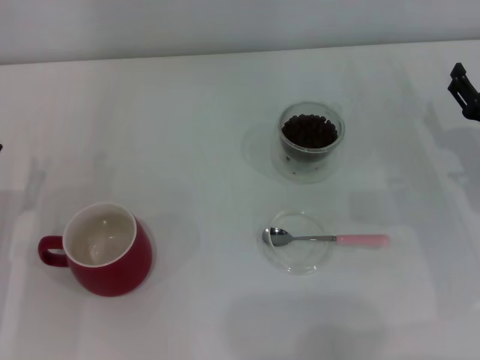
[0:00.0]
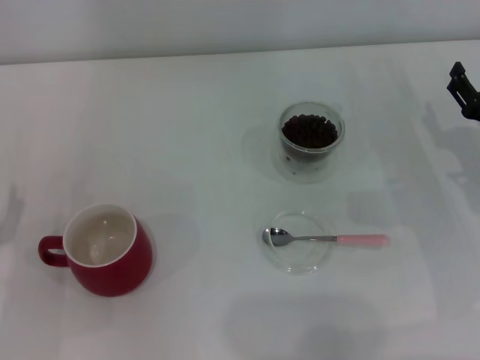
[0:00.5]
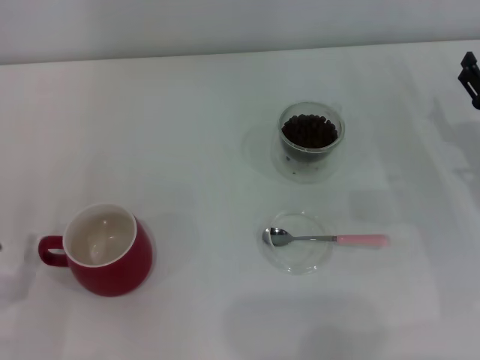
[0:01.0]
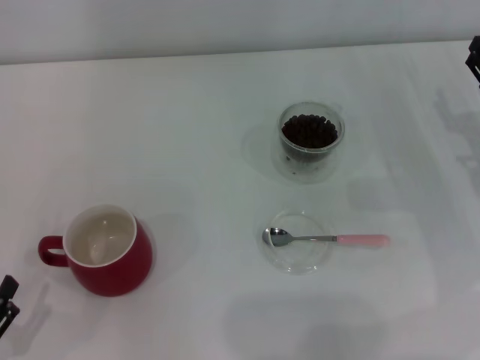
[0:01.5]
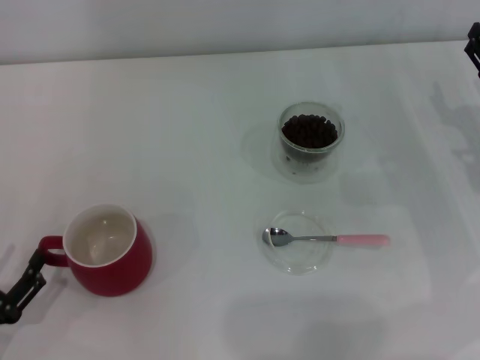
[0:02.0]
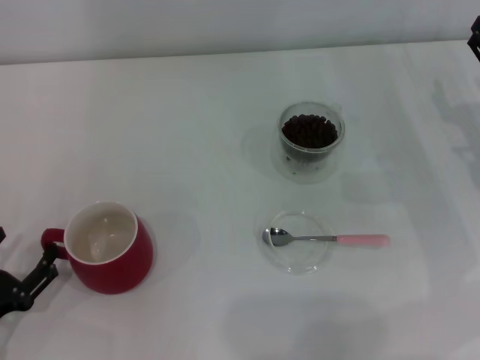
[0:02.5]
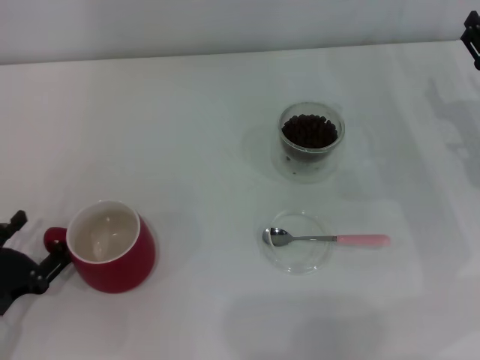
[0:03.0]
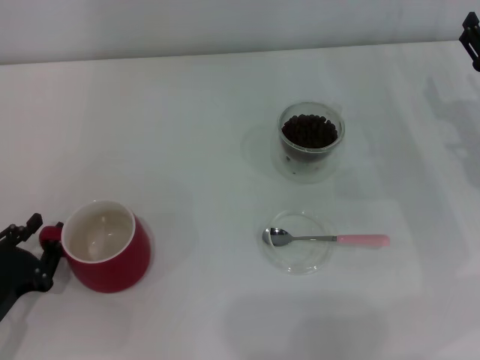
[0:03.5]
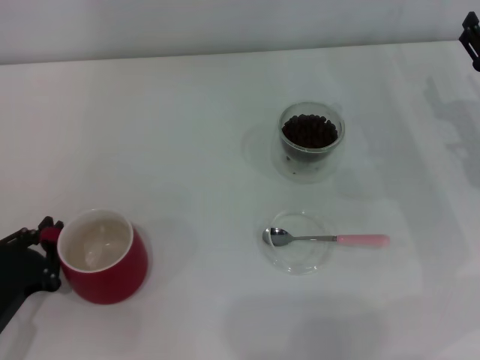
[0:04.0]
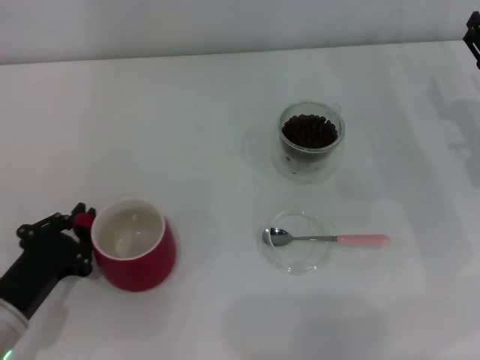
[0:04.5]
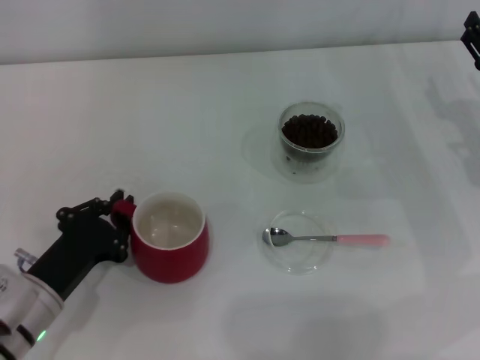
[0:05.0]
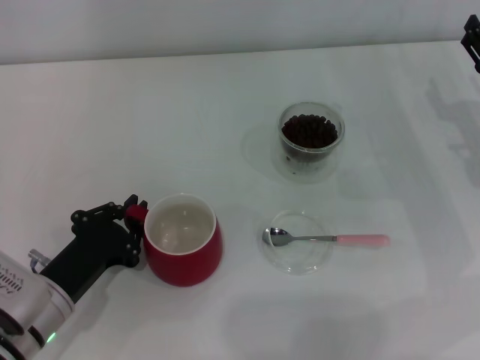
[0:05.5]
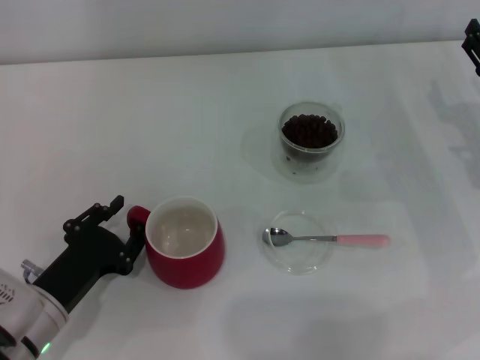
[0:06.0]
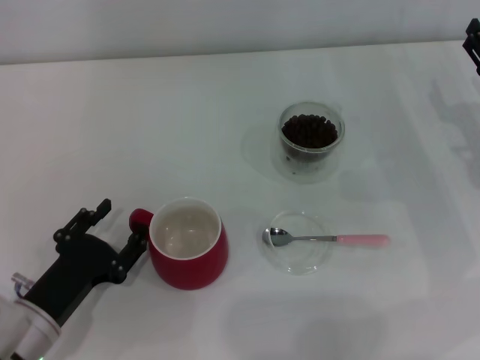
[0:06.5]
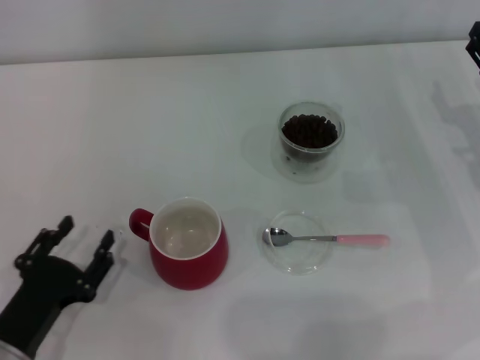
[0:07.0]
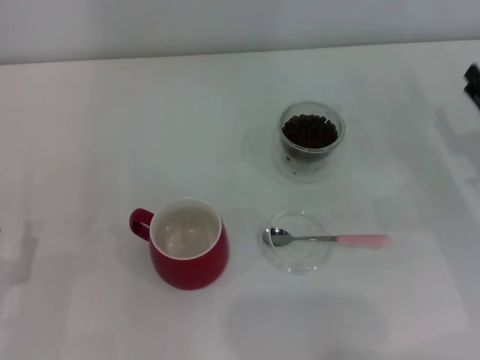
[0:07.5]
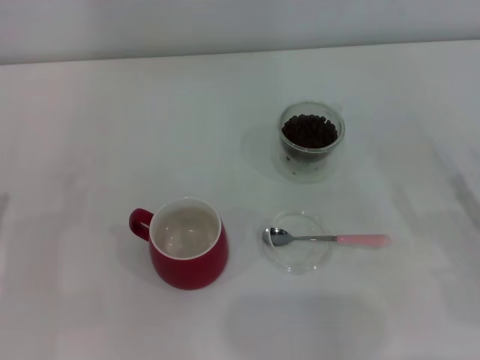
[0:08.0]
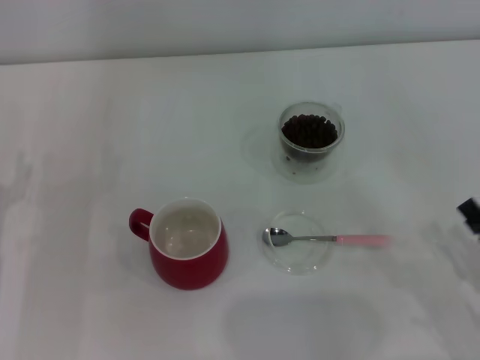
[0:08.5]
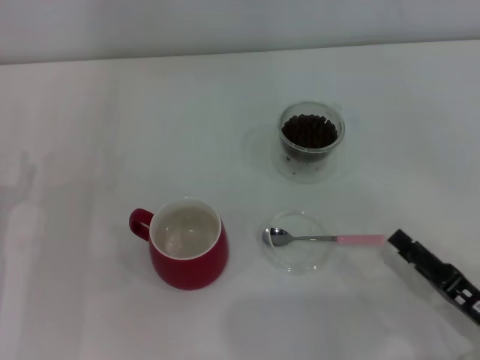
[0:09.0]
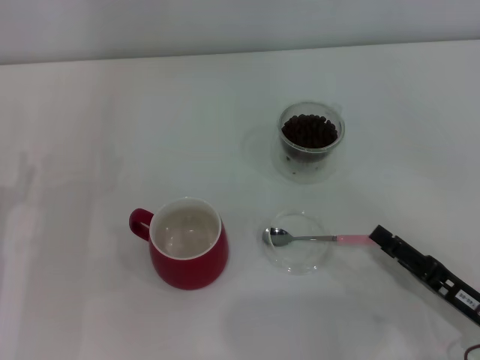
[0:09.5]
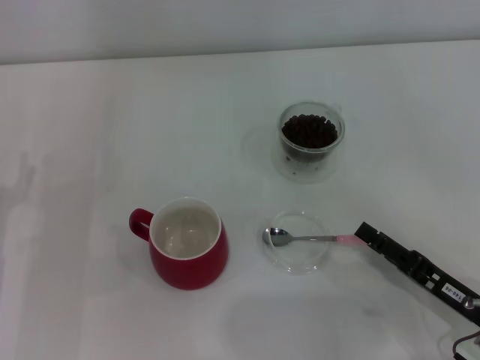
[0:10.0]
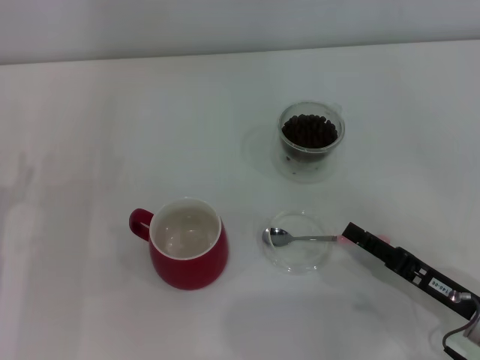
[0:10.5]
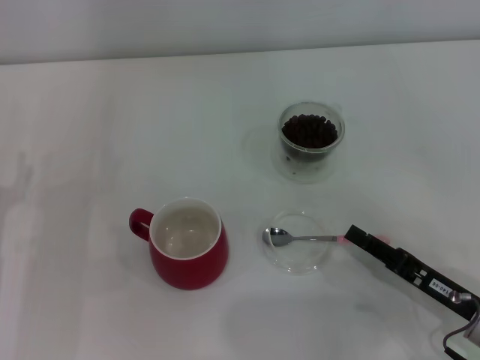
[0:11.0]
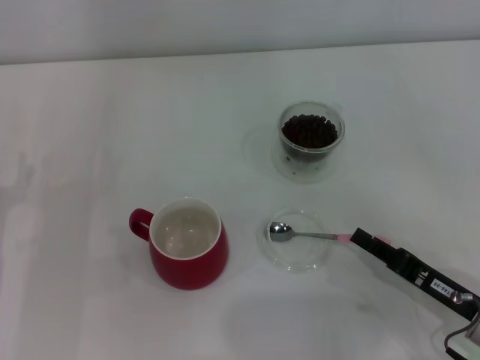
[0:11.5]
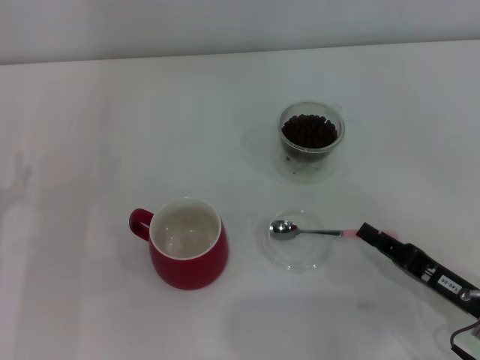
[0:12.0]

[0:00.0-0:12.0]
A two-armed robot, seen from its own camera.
Task of the whole recording: Use a pink spoon to take out the coffee beans from the glass and pour them into the red cup.
Step, 0:00.0 to 0:06.5: Move the cup to the center of view with the left gripper.
0:00.0 to 0:02.0: The left gripper heads backward, covering approximately 10 cm.
0:02.0 to 0:04.0: The left gripper goes roughly 5 cm forward, and closes its fingers.
0:04.0 to 0:06.0: The left gripper moves to the right, some 5 cm.
0:06.0 to 0:08.0: The left gripper is displaced to the left by about 10 cm, and opens; the right gripper shifts some 15 cm backward.
0:08.0 to 0:10.0: The right gripper travels to the left by some 10 cm.
0:10.0 to 0:12.0: The right gripper closes its fingers.

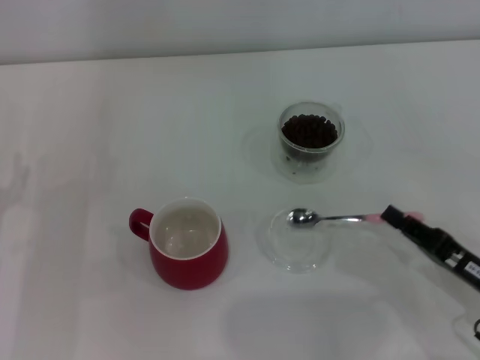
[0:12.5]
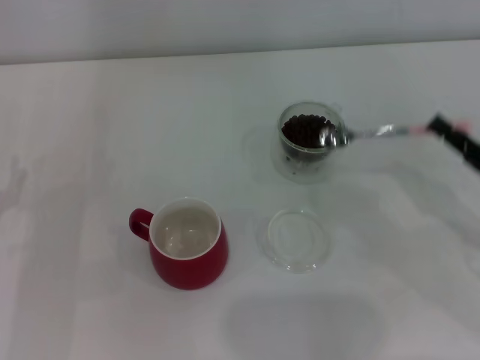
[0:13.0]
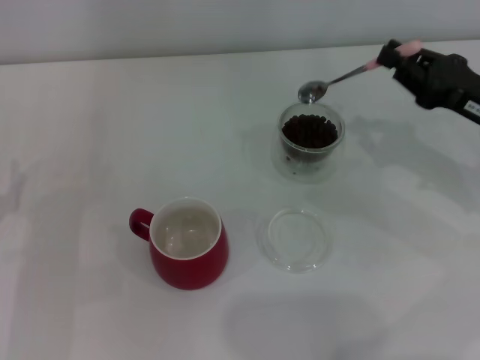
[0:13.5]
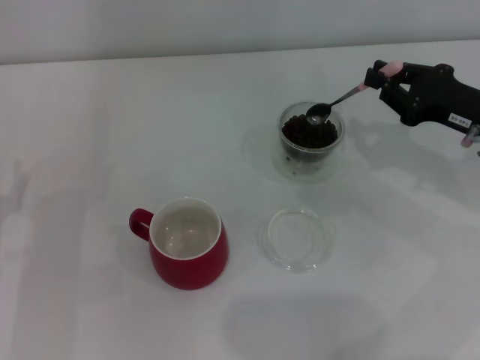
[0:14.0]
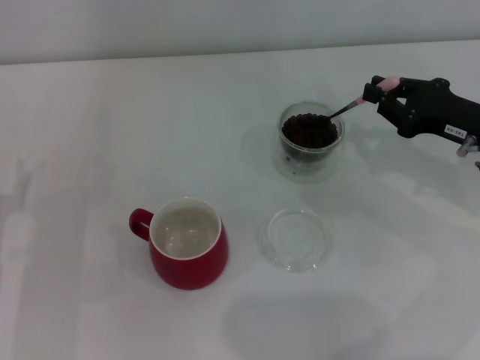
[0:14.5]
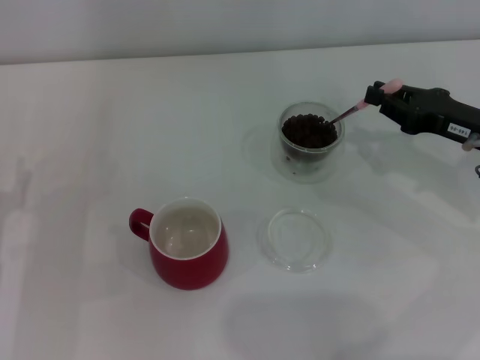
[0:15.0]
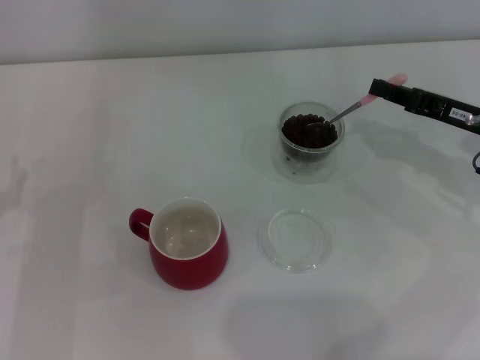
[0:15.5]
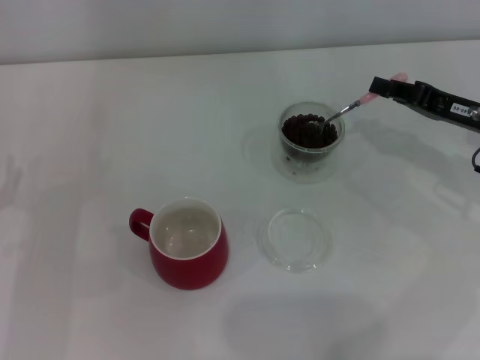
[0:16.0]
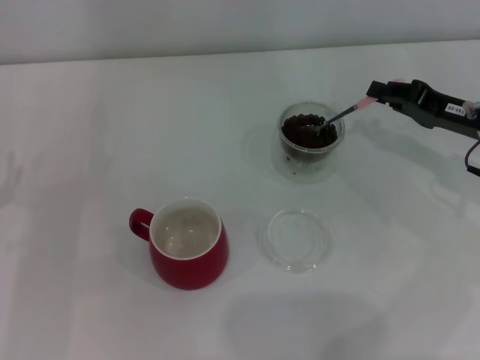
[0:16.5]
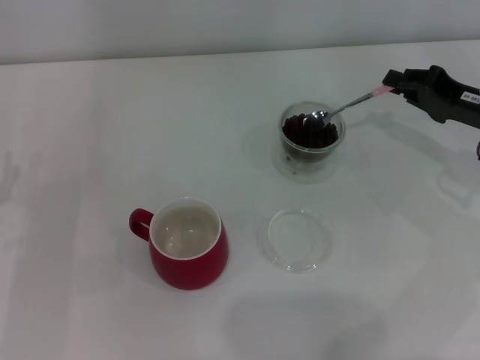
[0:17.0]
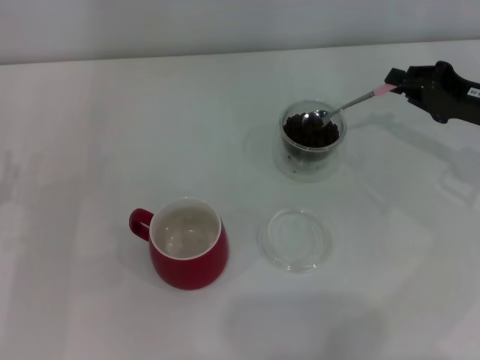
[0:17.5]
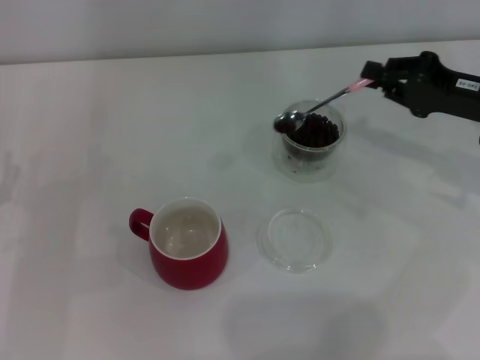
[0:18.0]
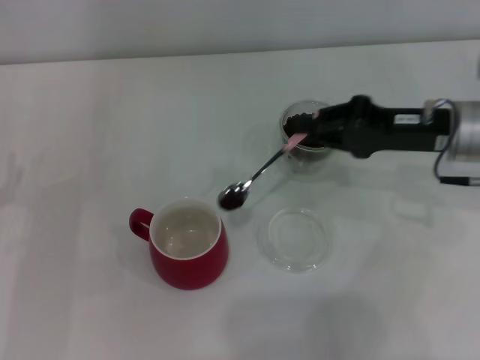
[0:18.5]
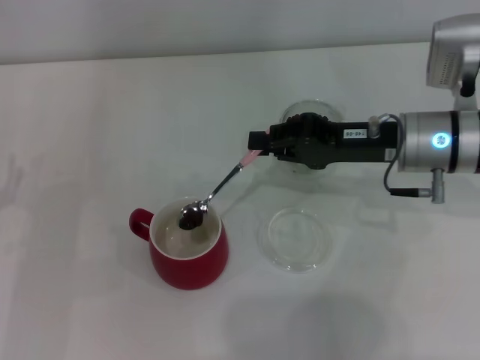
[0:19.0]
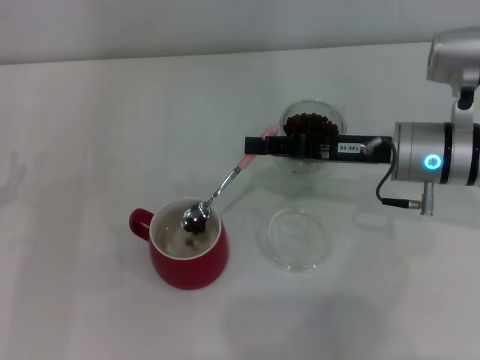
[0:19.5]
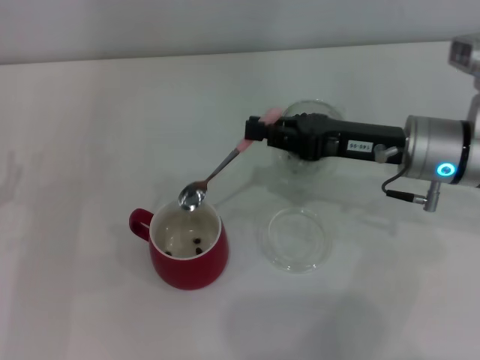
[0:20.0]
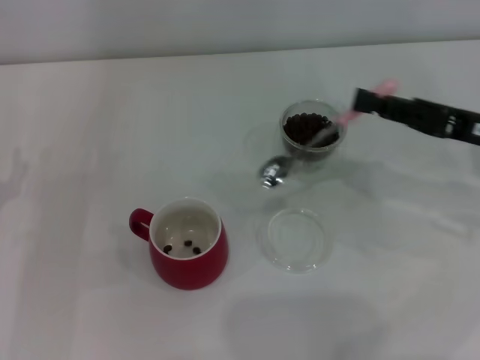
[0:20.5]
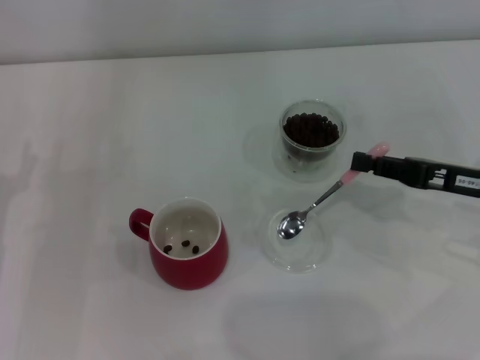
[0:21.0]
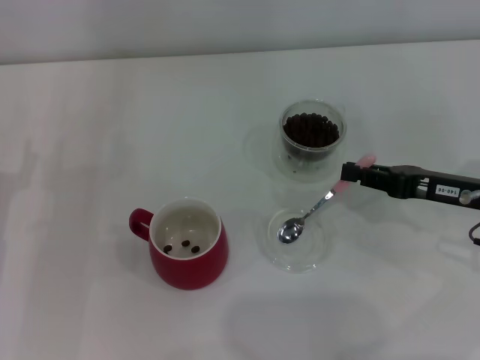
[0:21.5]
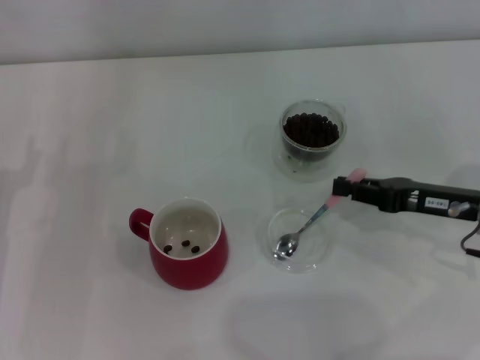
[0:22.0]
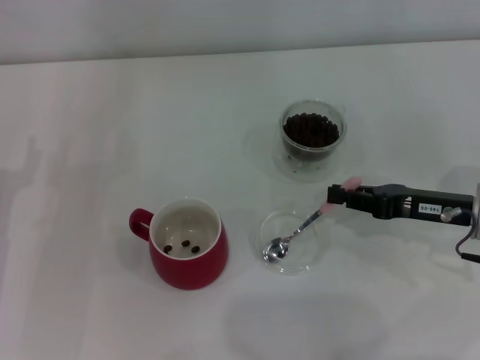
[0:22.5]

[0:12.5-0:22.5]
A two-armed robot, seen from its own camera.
Task of the whole recording: Use a pink spoon to take out the coffee beans from the glass and pour them into the red cup.
Step, 0:13.0 to 0:19.5: Scoop a spoonful of beans into the cup with the right gripper.
0:12.5 to 0:14.5: The right gripper moves forward and upward, approximately 15 cm.
0:16.5 to 0:18.5: The right gripper moves to the left, some 5 cm.
0:18.5 to 0:20.5: The right gripper moves roughly 5 cm.
0:20.5 to 0:22.5: The right gripper goes roughly 5 cm downward.

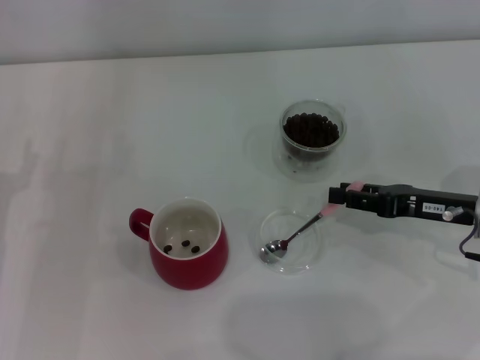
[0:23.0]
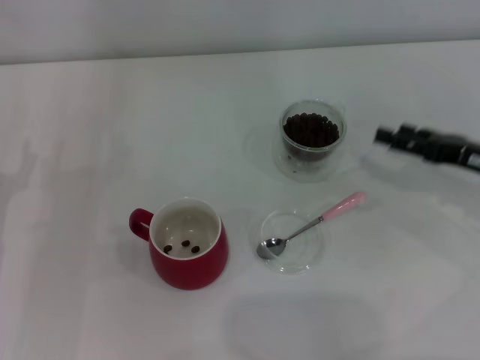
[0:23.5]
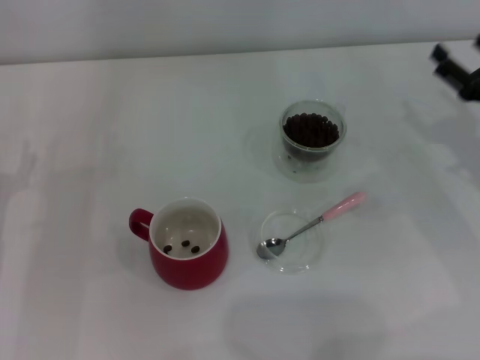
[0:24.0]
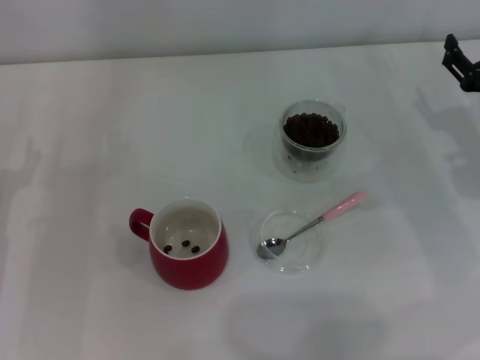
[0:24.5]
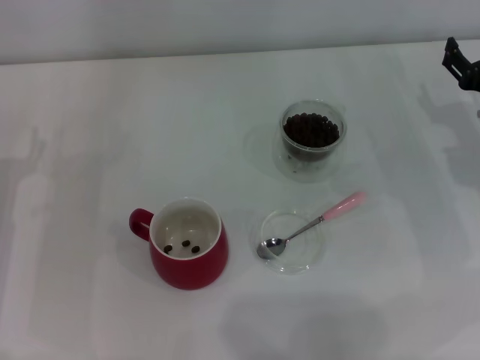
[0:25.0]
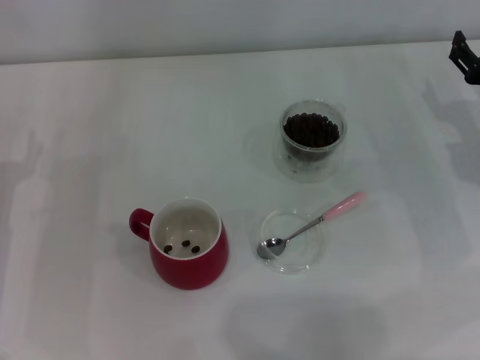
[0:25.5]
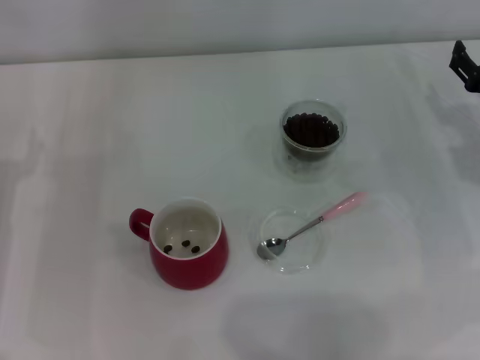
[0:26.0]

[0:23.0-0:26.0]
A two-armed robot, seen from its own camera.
Task of the whole recording: Use a pink spoon to take out the coffee beans from the glass and pour them into the red cup.
0:23.0 to 0:24.5: The right gripper ends up roughly 5 cm from where it was, and opens.
